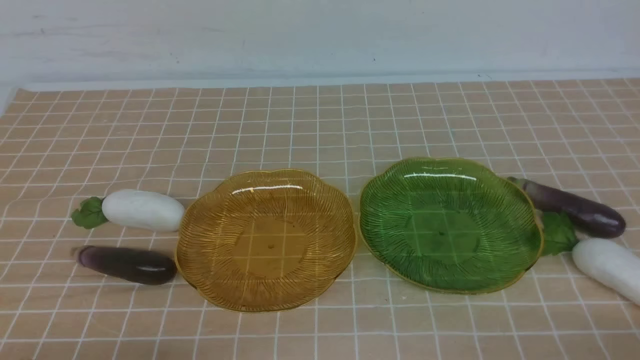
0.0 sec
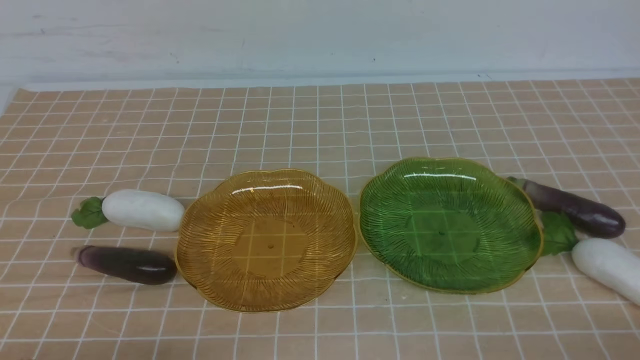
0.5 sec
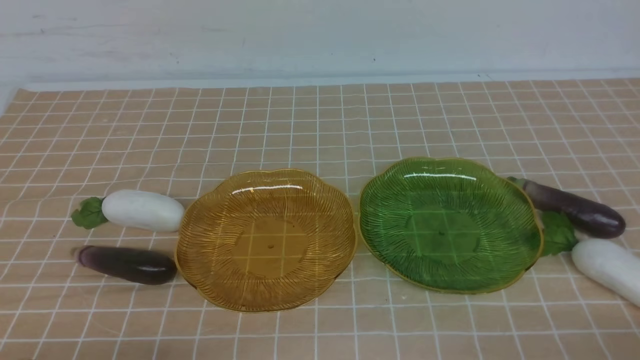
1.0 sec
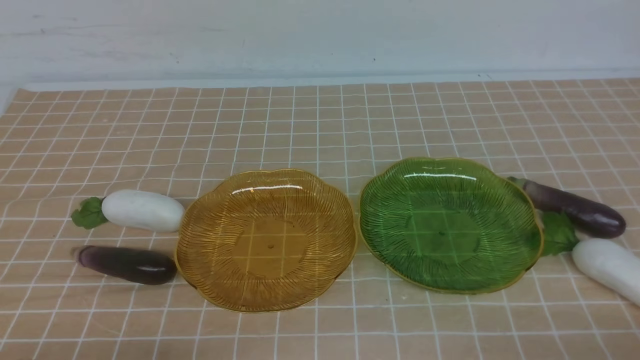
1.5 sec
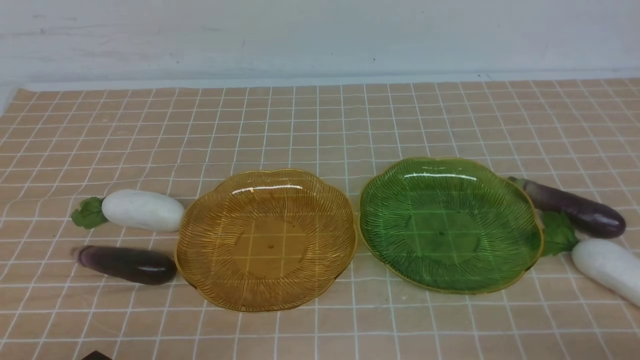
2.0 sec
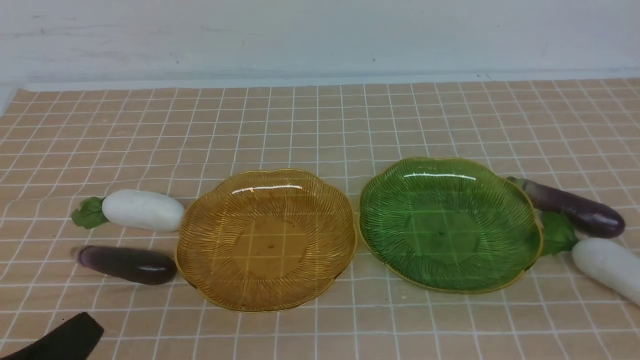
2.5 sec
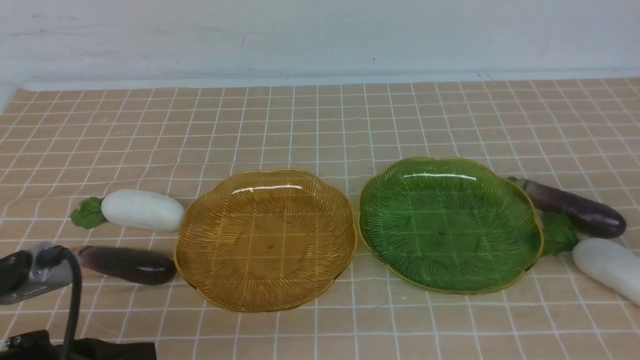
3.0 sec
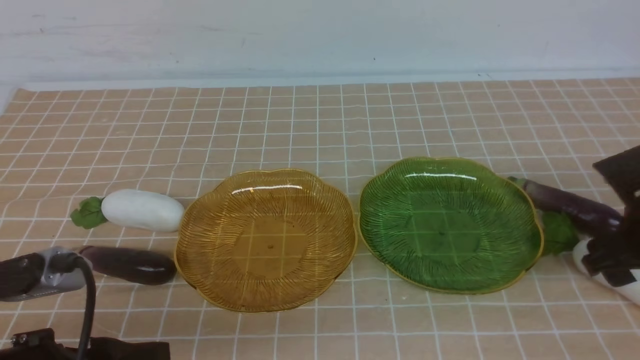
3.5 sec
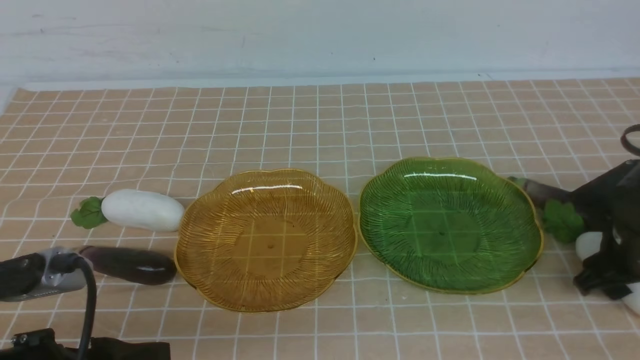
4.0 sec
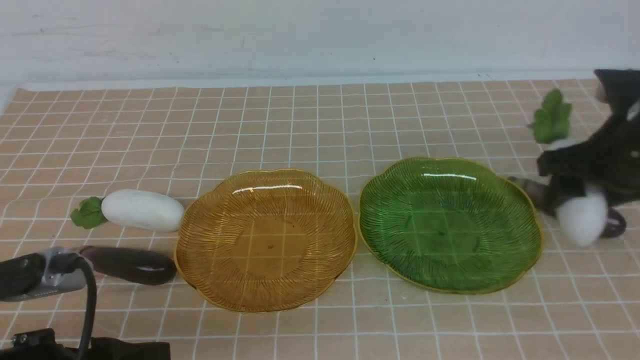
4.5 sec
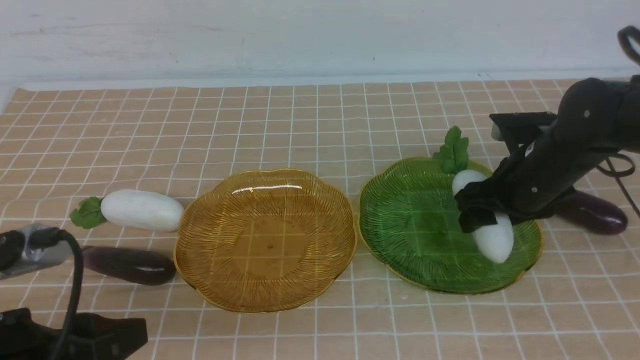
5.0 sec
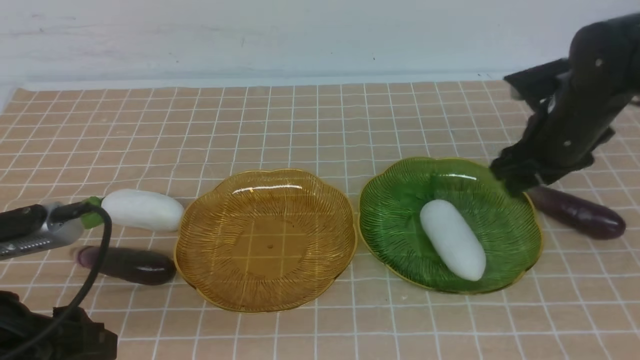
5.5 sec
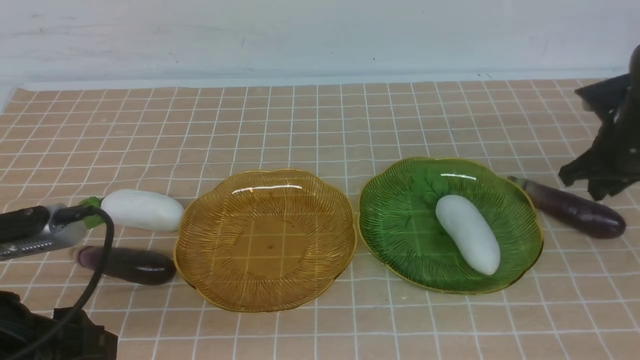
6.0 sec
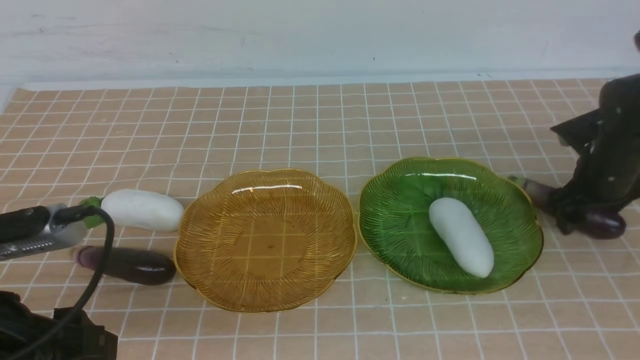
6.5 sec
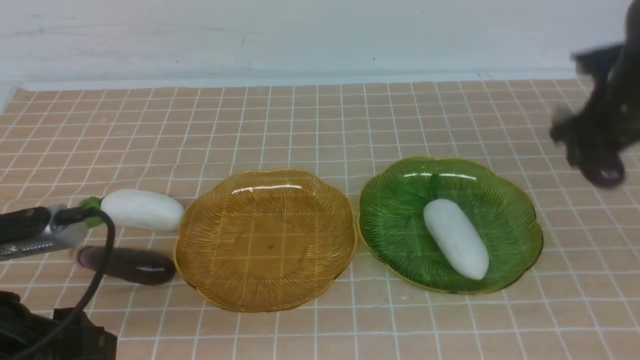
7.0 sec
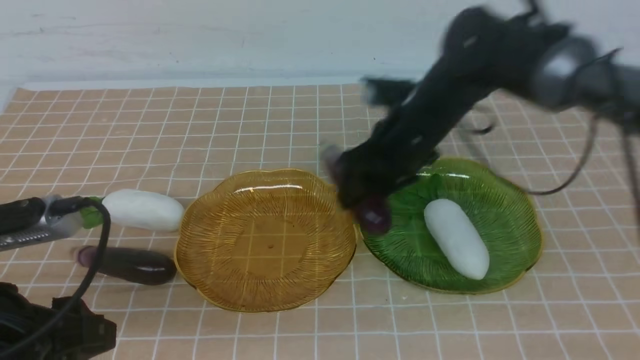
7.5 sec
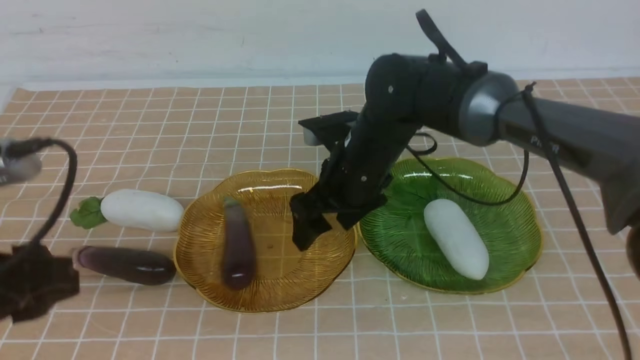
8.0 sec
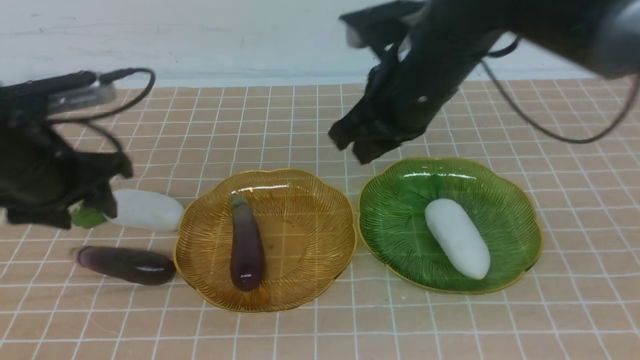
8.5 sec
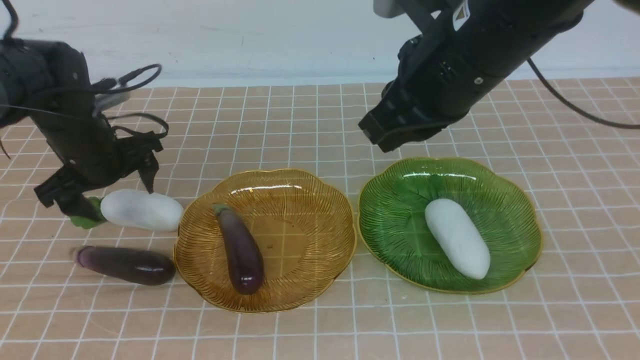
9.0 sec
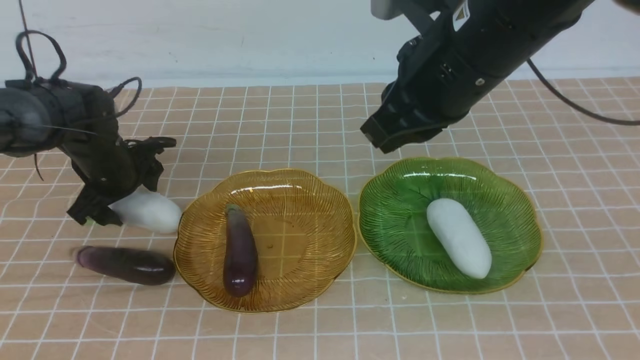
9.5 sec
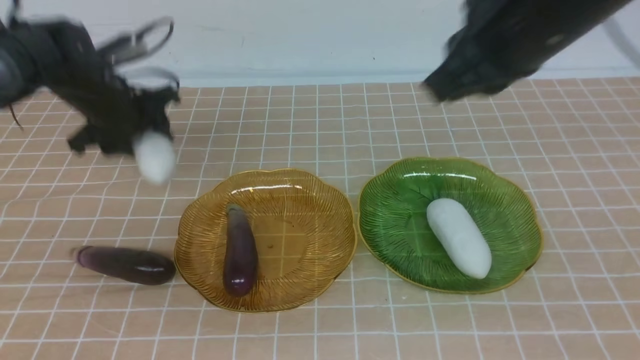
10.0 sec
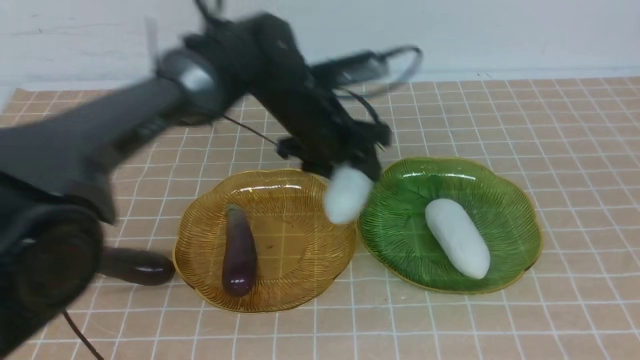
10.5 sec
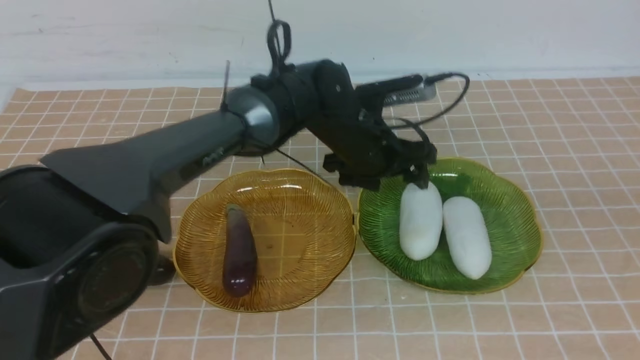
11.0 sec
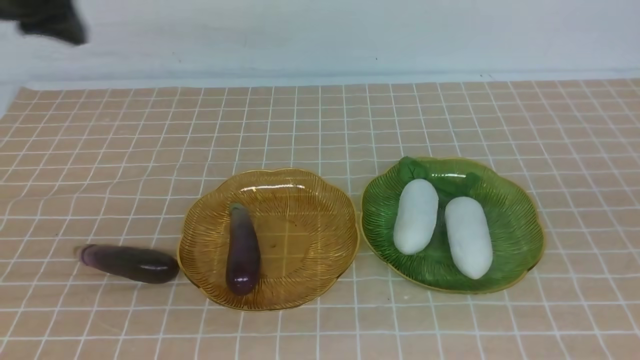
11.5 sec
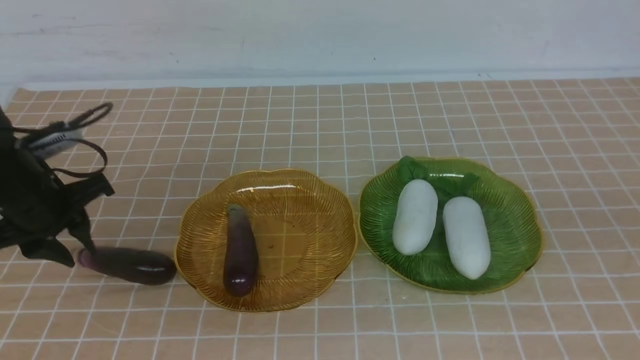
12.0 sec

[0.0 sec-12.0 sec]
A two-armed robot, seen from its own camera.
Step, 0.0 sec to 5.0 sec: use the right arm to grab a radish and put it into the right plate.
Step, 5.5 sec to 8.0 sec: use the right arm to grab an eggplant and put it into the left plate.
Step, 8.5 sec to 11.0 sec: use the left arm to grab a radish and put it into the right plate.
2.0 sec to 4.0 sec: The left gripper moves forward, roughly 5 cm, and opens its fingers, while the right gripper heads forward, covering some 30 cm, and opens.
4.0 sec to 6.0 sec: The right gripper moves downward, forward and to the right, approximately 15 cm, and closes, then opens again.
6.0 sec to 8.0 sec: The left gripper goes about 10 cm forward; the right gripper heads to the left, covering roughly 30 cm.
8.0 sec to 10.0 sec: The right gripper goes roughly 30 cm upward, to the right and backward, and closes, while the left gripper goes roughly 25 cm forward and to the right.
10.0 sec to 12.0 sec: The right gripper moves backward and downward, approximately 10 cm. Meanwhile the left gripper is displaced to the left, downward and backward by approximately 20 cm, and closes, then opens again.

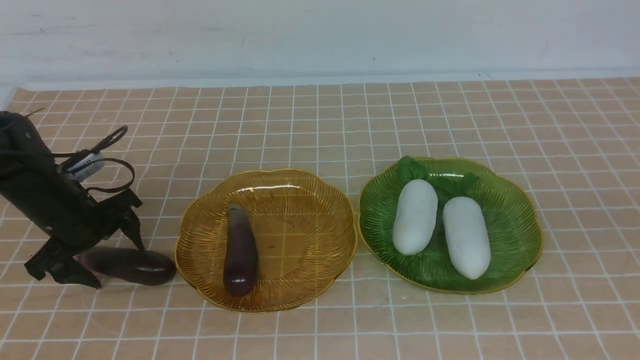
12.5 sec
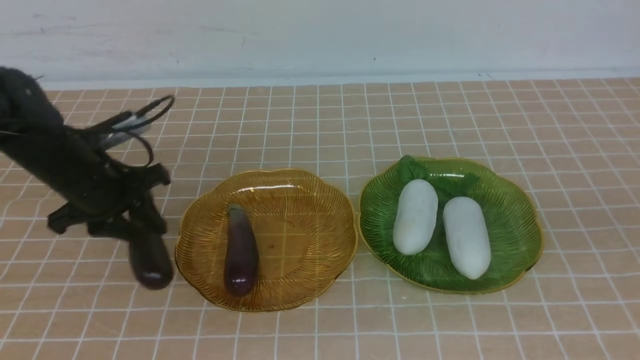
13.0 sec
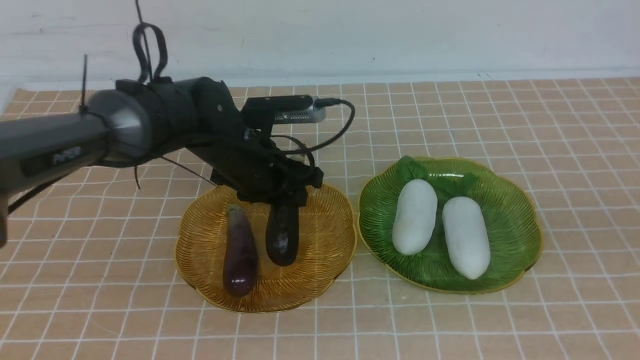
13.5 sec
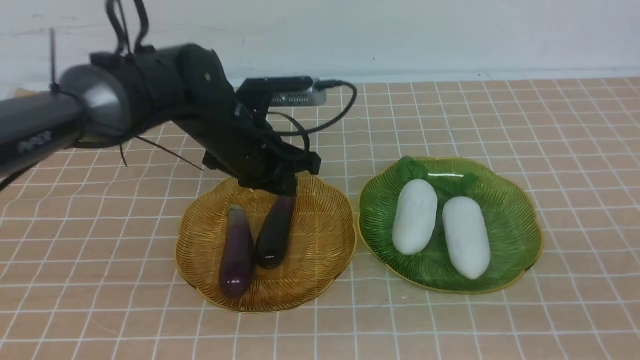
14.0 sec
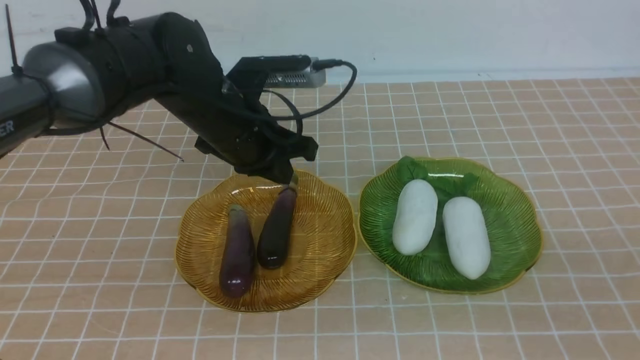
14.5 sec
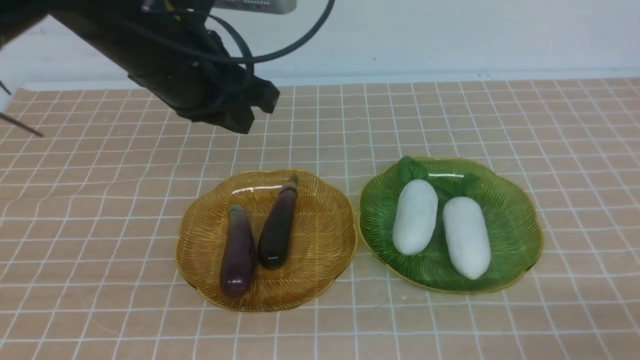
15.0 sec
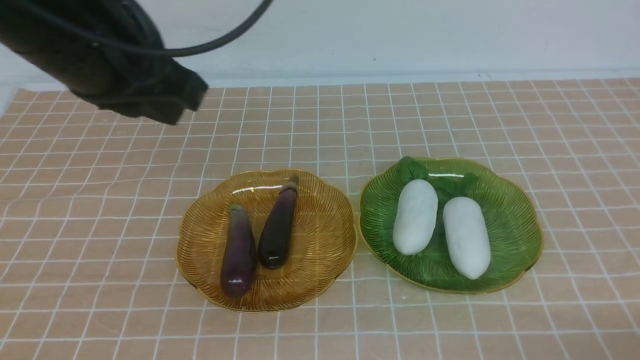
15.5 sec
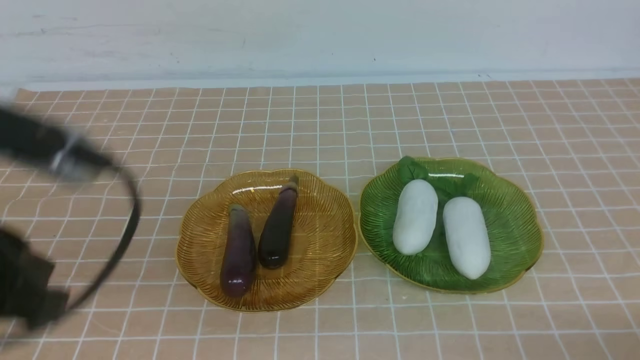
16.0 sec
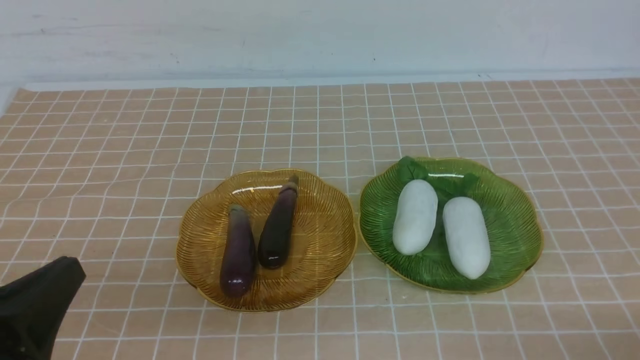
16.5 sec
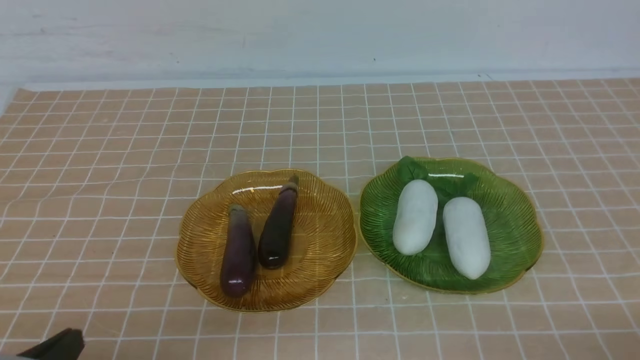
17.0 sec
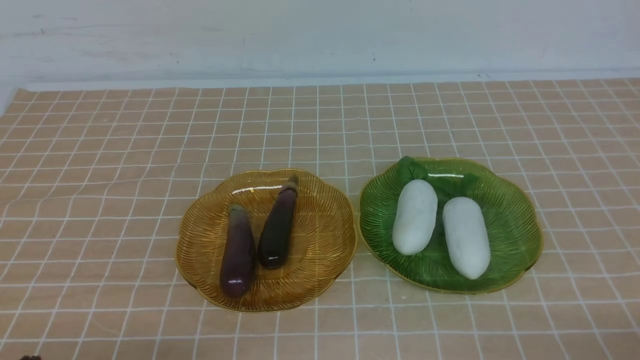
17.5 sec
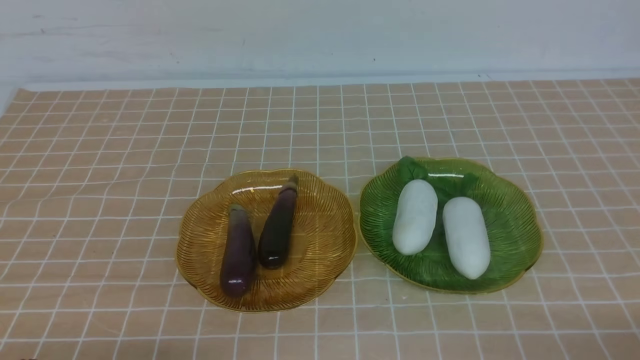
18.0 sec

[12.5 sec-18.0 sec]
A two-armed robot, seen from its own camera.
Step, 12.5 sec to 14.0 sec: use the left arm to grab an eggplant and put it into the left plate.
12.5 sec to 14.5 sec: The right gripper travels downward by approximately 25 cm. The left gripper goes some 20 cm upward and backward, and closes up.
14.5 sec to 16.0 sec: The left gripper moves backward, downward and to the left, some 30 cm.
16.0 sec to 18.0 sec: The left gripper moves about 5 cm.
